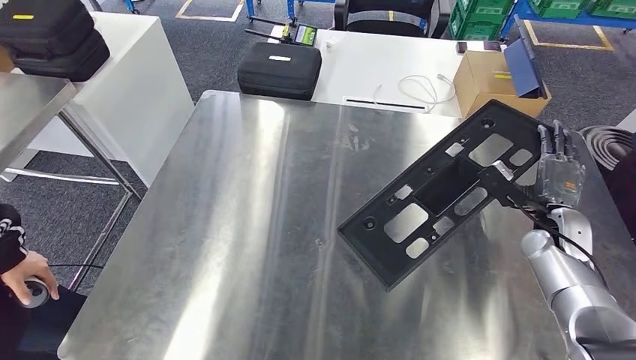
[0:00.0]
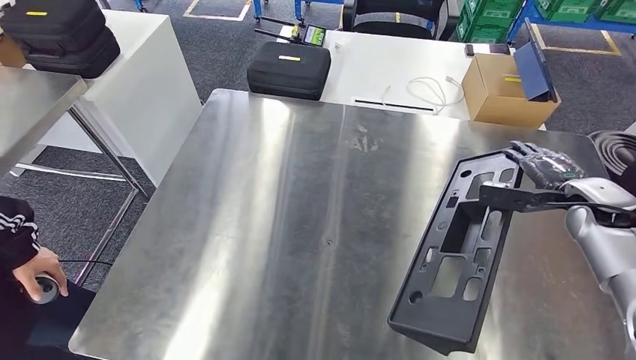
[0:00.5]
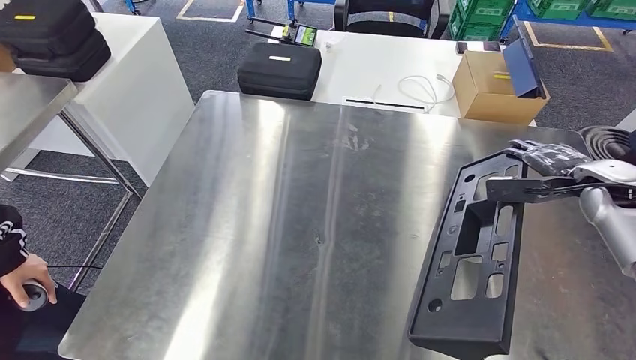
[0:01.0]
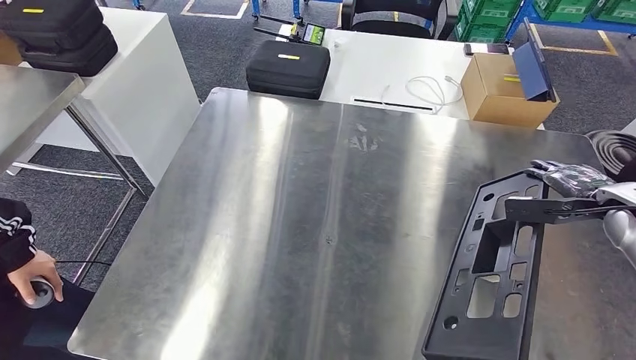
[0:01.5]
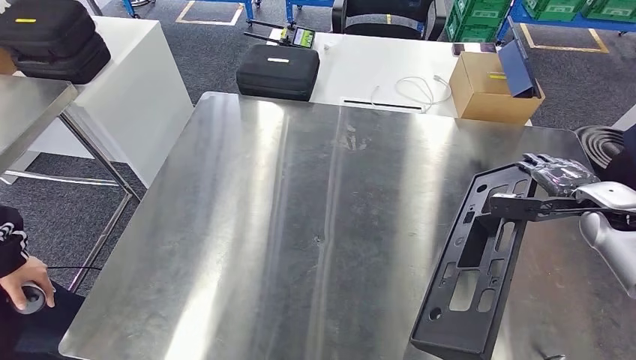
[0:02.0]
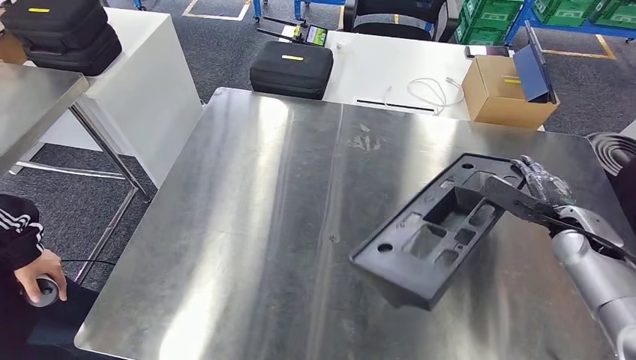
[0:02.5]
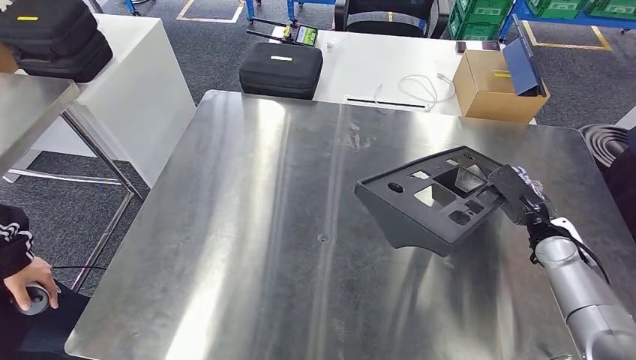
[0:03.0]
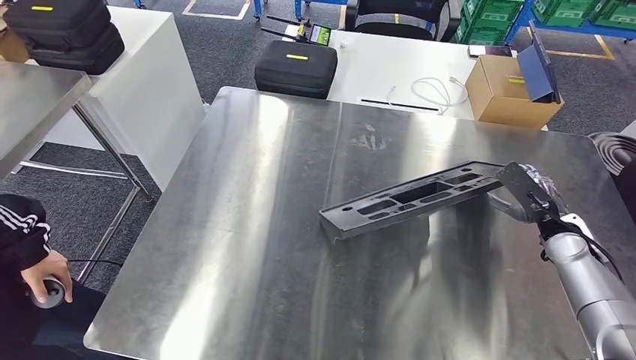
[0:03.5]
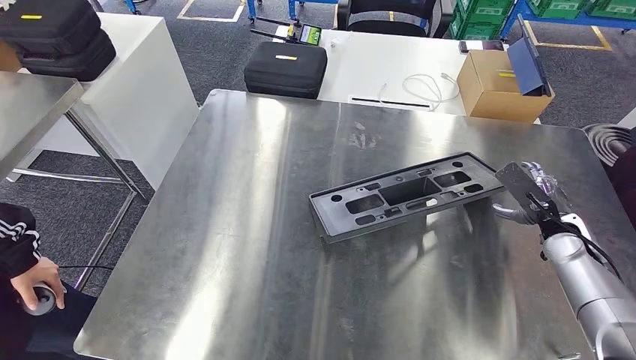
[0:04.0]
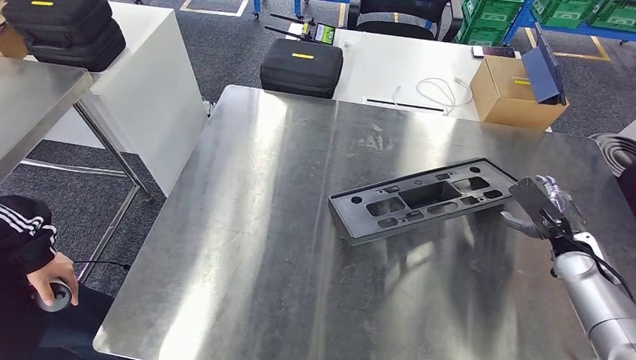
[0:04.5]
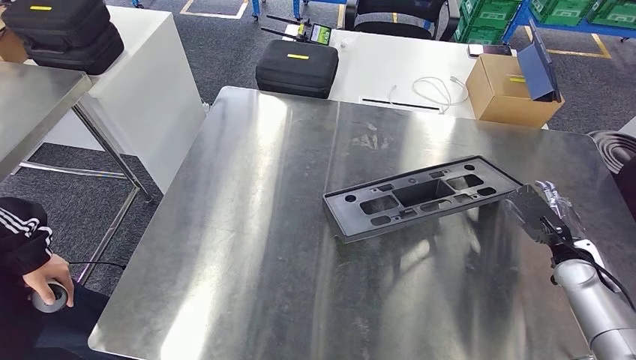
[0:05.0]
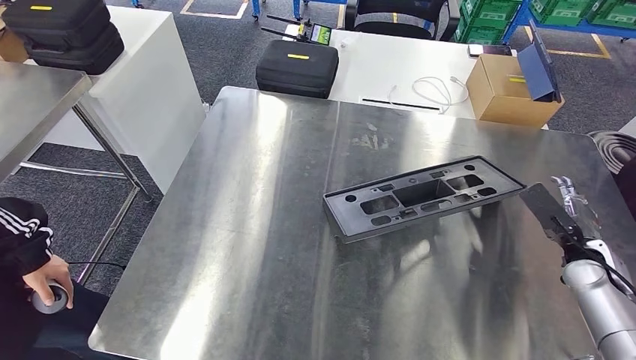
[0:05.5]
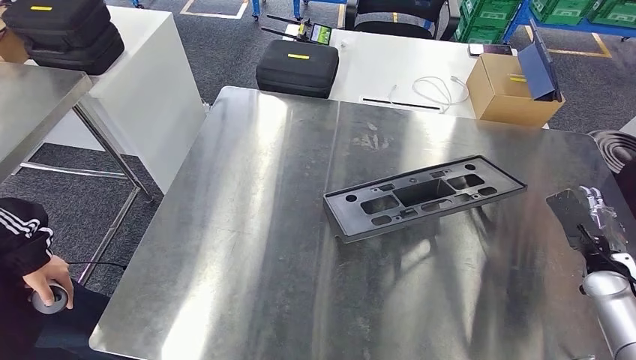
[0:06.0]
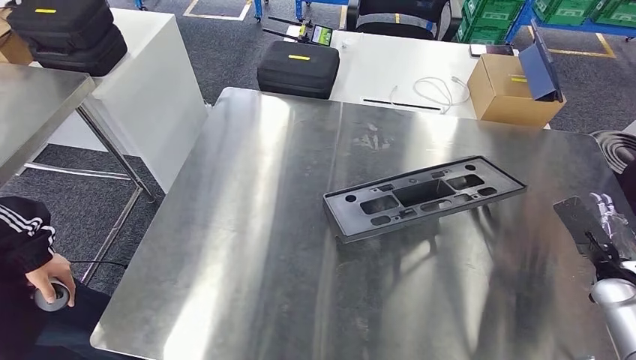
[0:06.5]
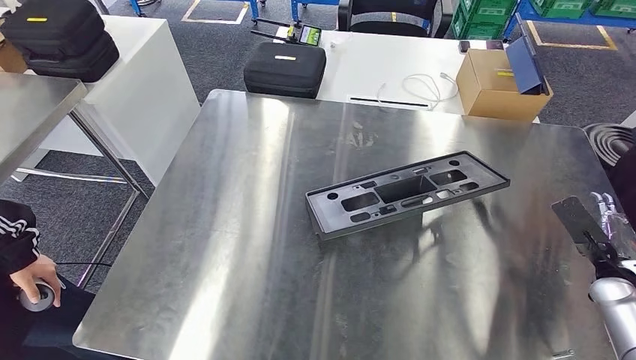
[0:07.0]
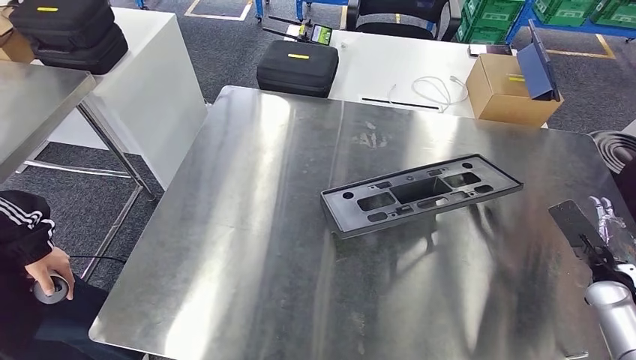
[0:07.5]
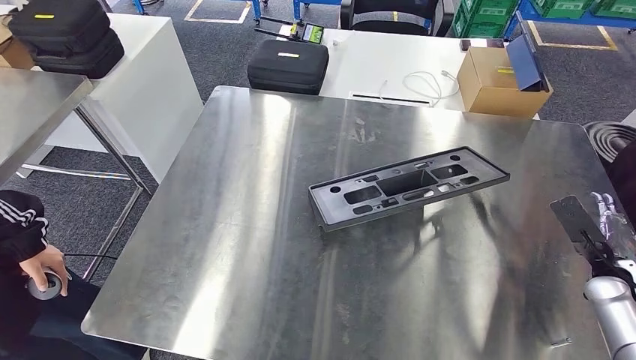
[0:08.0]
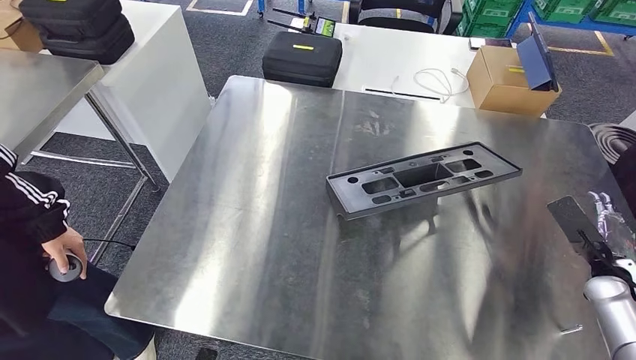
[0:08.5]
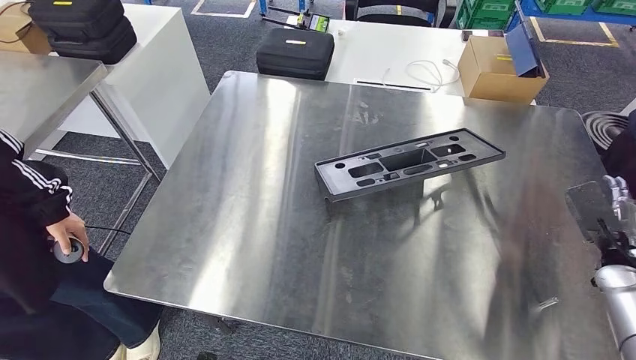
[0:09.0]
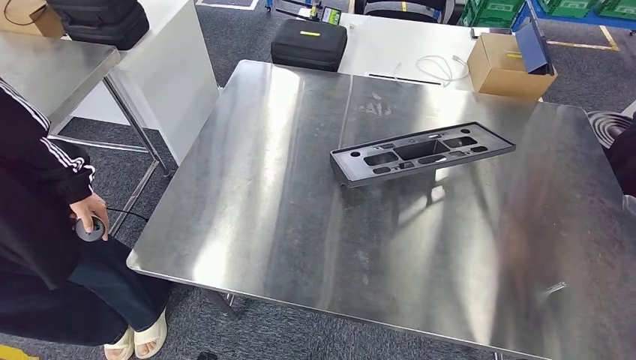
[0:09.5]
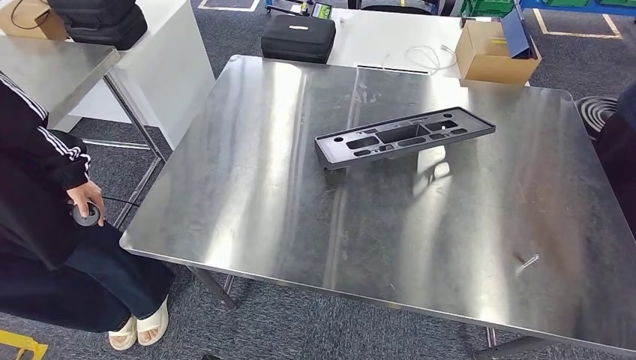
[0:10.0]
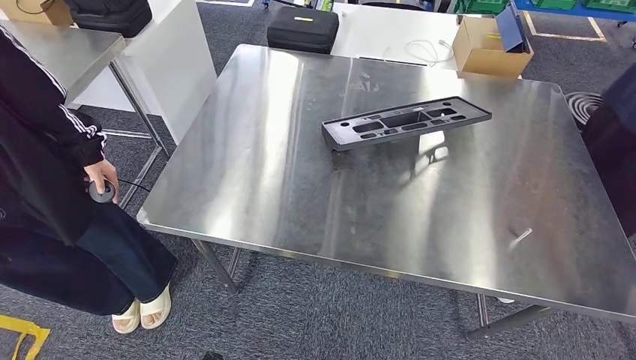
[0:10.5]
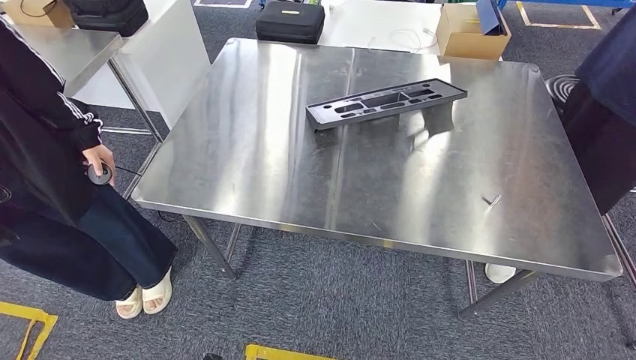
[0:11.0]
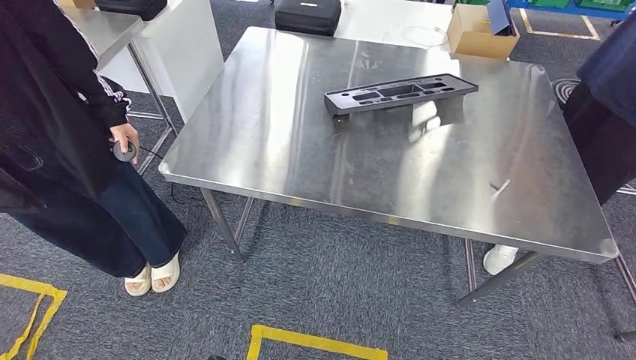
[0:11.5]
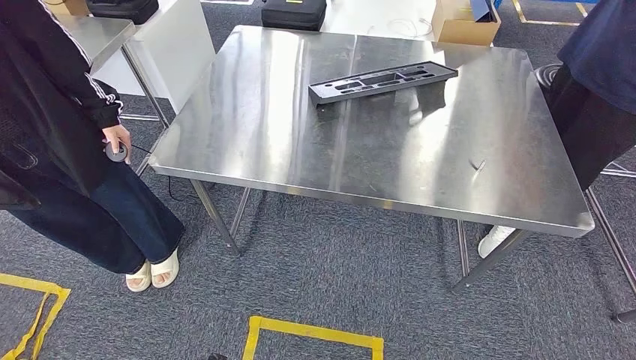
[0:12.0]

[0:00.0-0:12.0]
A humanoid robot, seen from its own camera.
Step, 0:00.0 to 0:12.0: Insert the large material into the corresponding hole on the workbench.

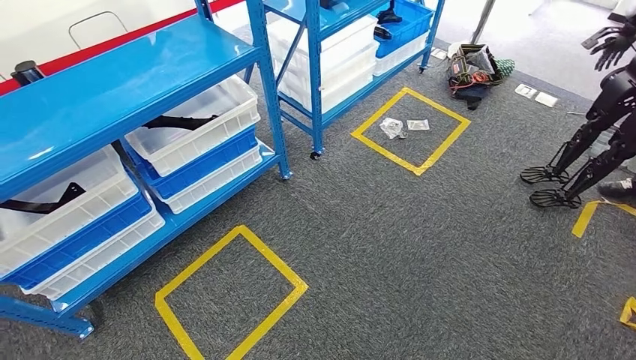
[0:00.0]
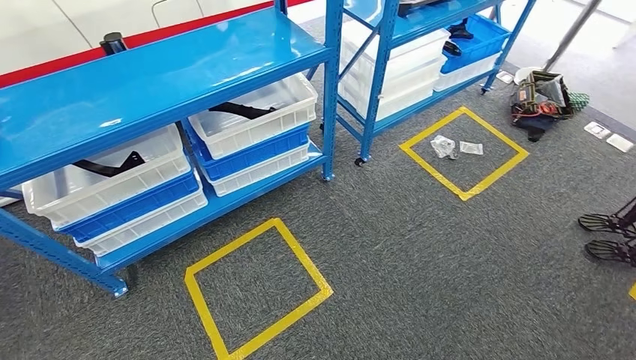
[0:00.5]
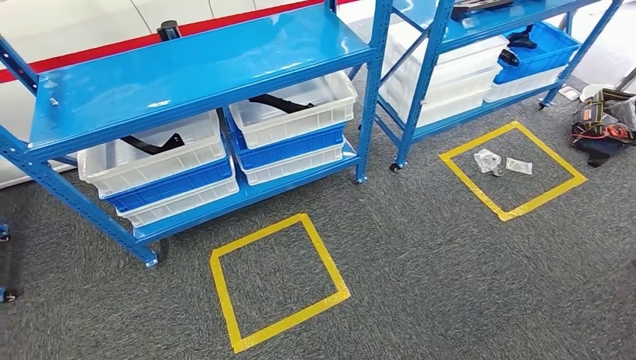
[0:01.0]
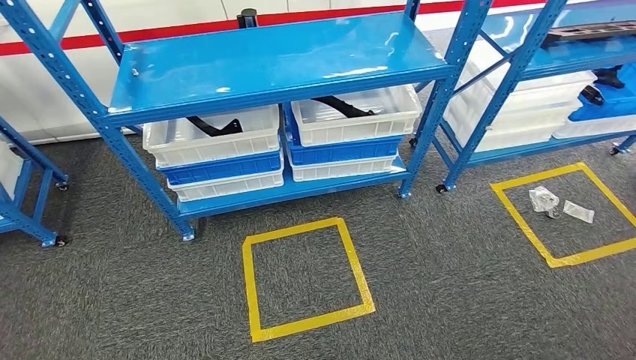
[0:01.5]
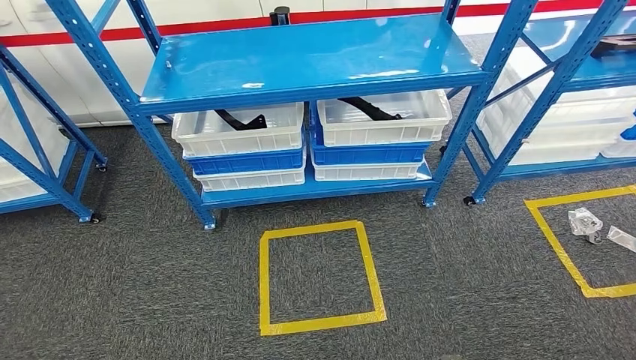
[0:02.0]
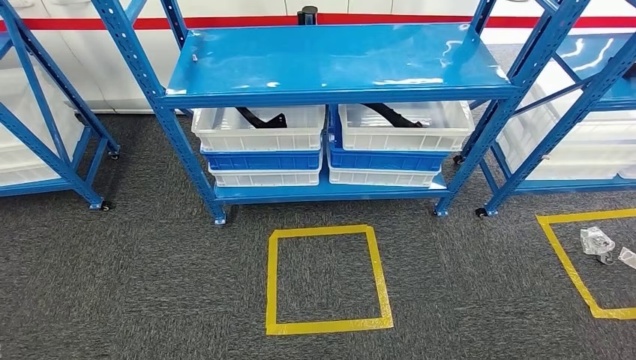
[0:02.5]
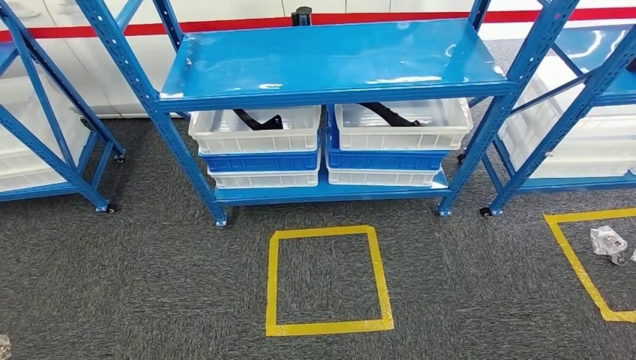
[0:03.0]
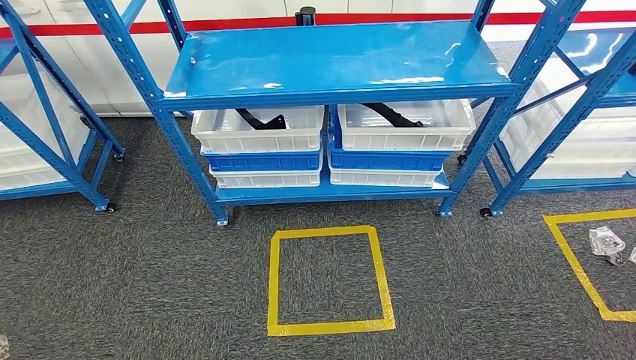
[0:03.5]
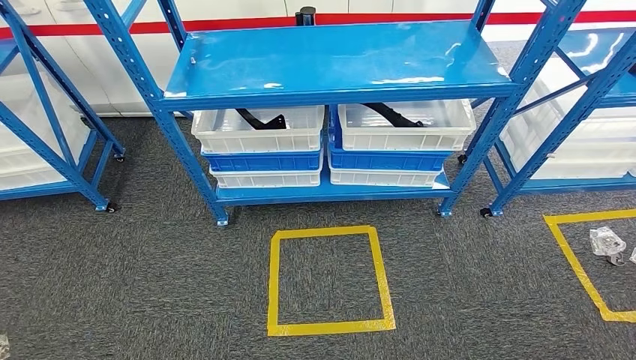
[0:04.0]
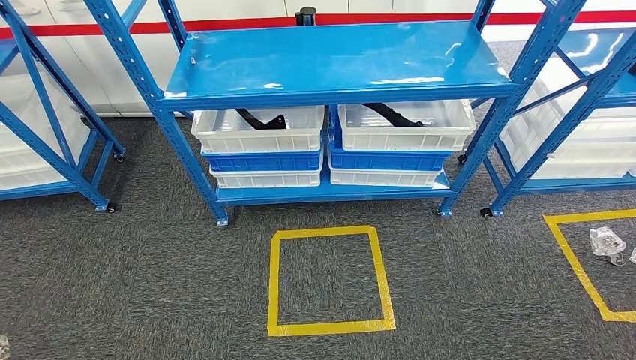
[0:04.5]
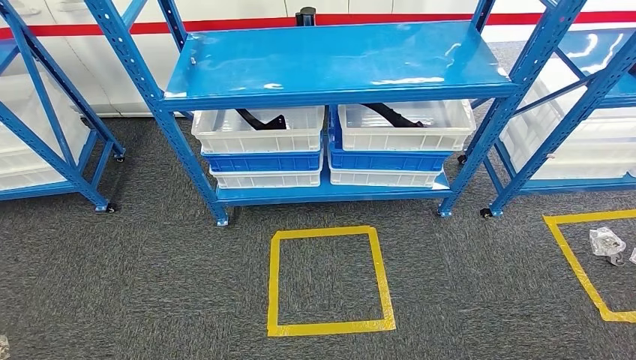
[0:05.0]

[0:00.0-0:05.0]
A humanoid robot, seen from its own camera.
Step, 0:00.0 to 0:05.0: Move to the initial position of the shelf.
0:02.5 to 0:05.0: The two hands go approximately 5 cm backward.

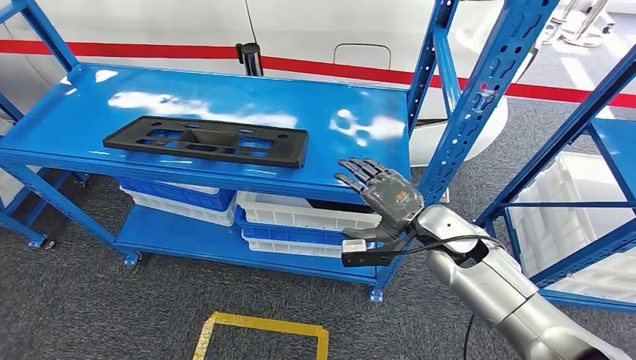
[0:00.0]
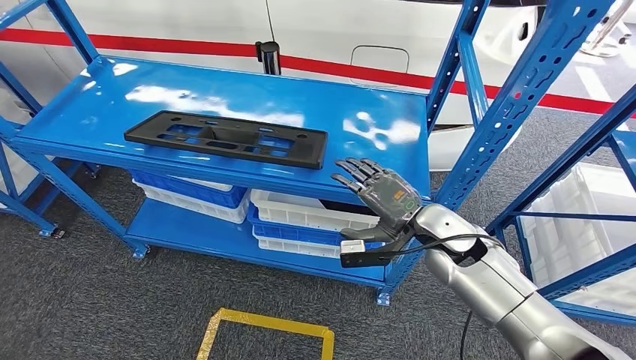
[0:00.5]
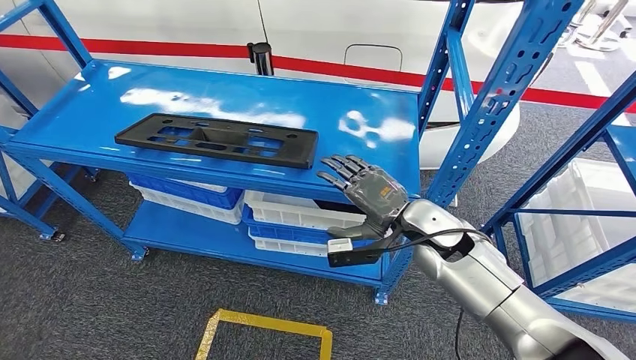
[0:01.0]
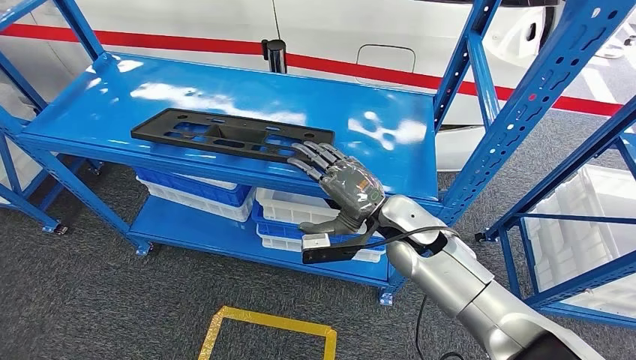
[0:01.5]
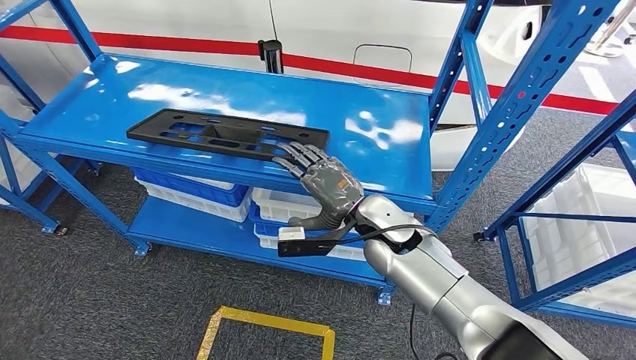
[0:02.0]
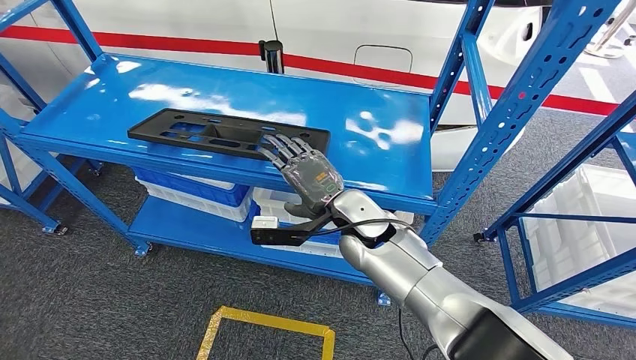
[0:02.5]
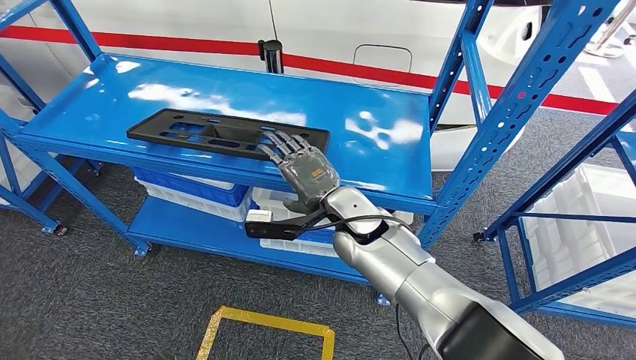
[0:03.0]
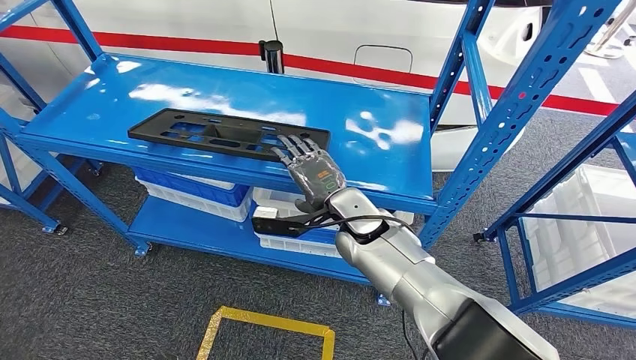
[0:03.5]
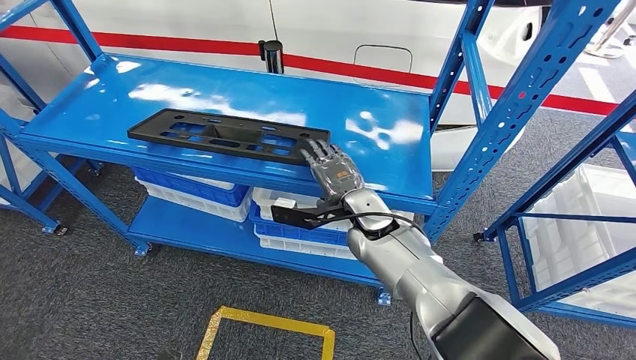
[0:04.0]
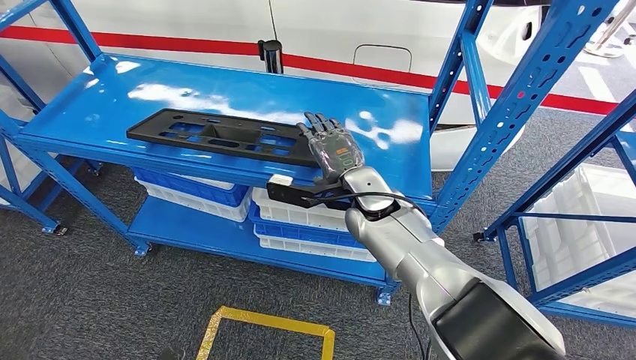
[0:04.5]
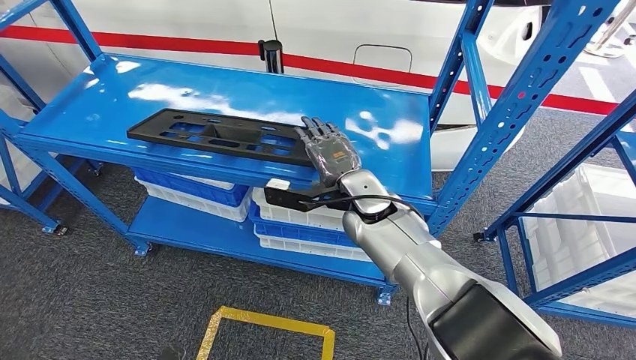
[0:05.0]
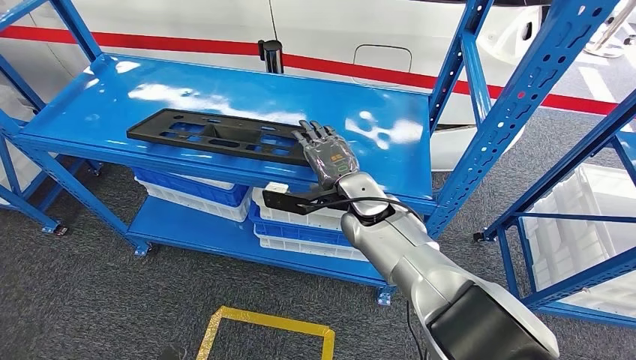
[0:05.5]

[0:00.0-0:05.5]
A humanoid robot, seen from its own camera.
0:02.0 to 0:03.5: The hands make only small movements.
0:03.5 to 0:05.5: The hands stay close to where they were, moving slightly.
